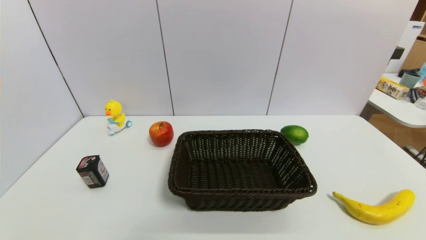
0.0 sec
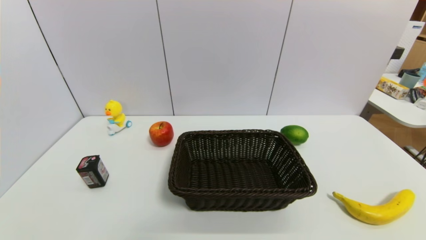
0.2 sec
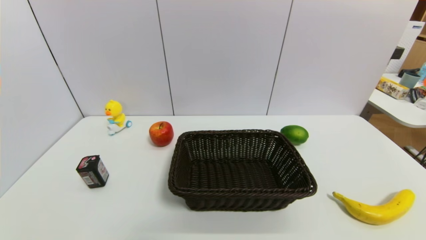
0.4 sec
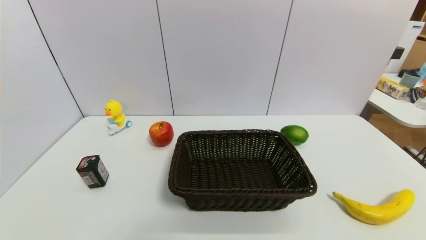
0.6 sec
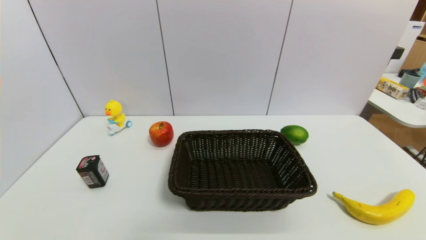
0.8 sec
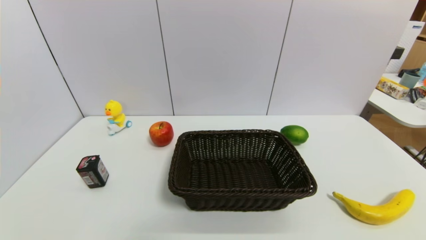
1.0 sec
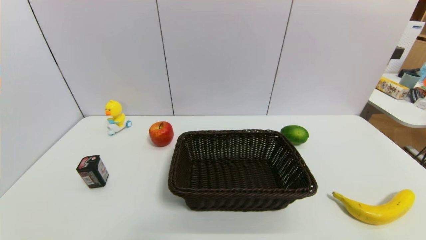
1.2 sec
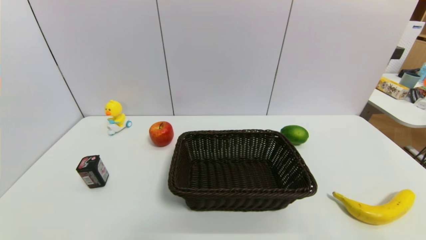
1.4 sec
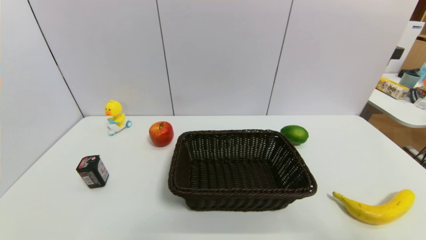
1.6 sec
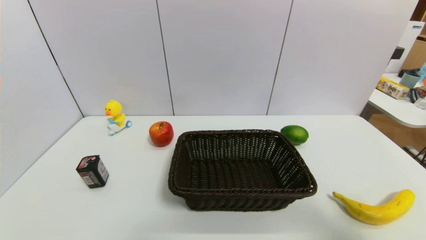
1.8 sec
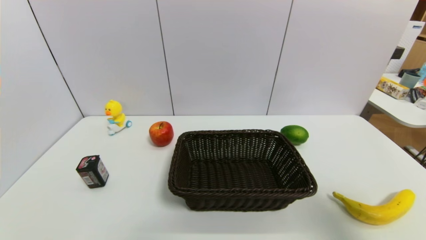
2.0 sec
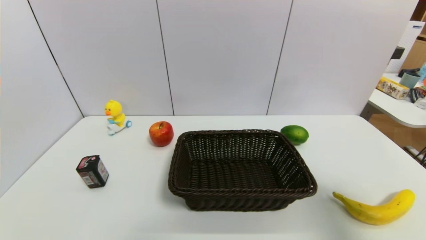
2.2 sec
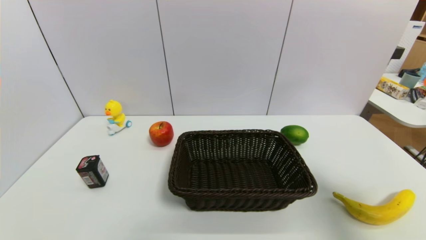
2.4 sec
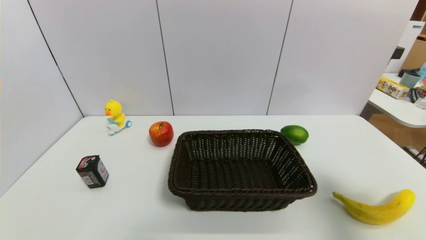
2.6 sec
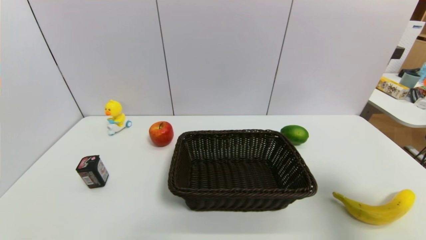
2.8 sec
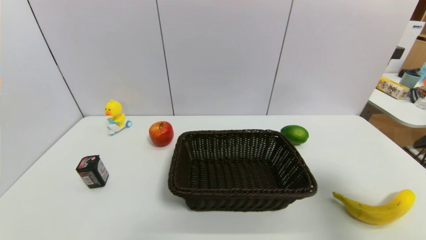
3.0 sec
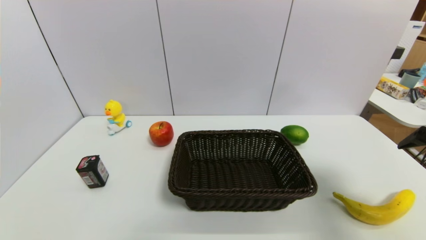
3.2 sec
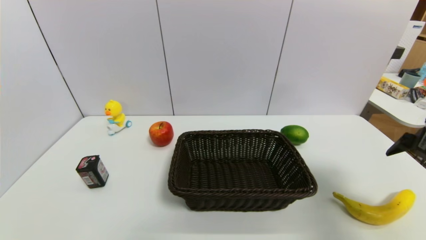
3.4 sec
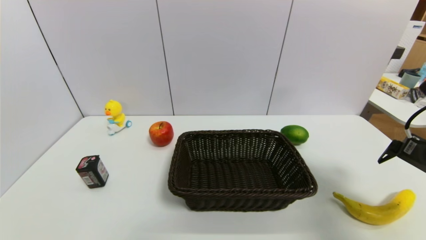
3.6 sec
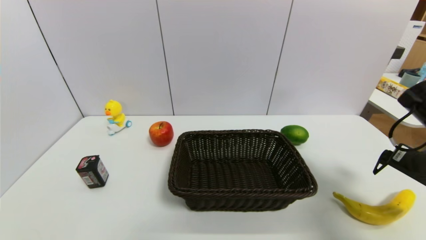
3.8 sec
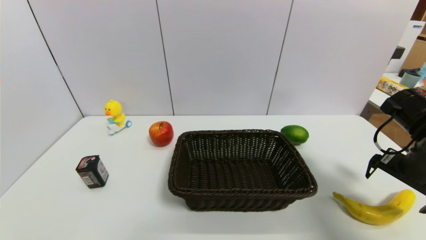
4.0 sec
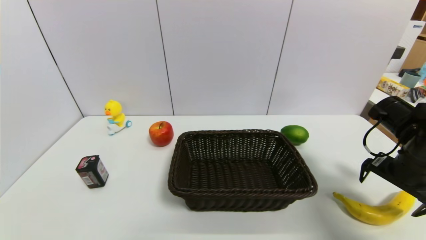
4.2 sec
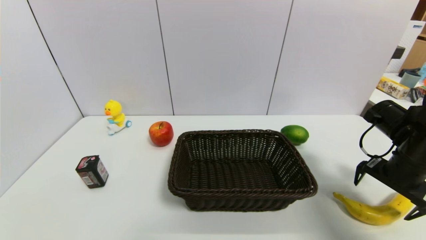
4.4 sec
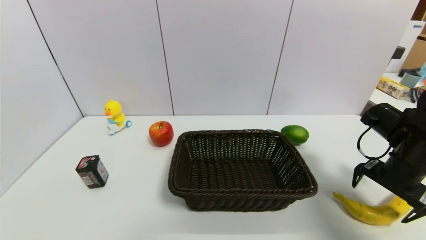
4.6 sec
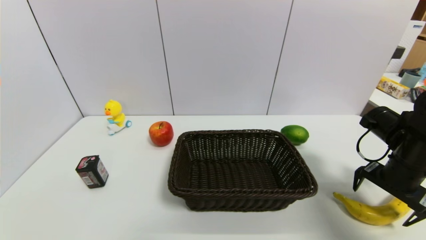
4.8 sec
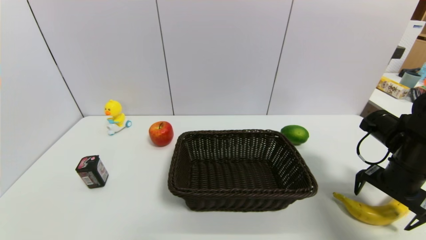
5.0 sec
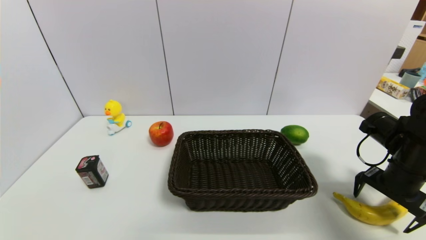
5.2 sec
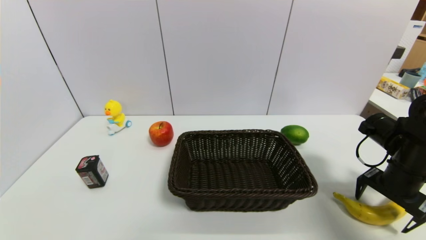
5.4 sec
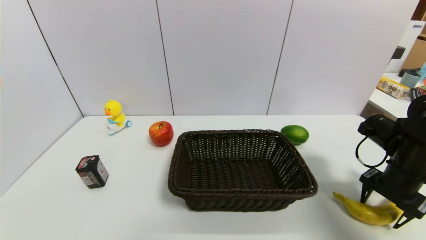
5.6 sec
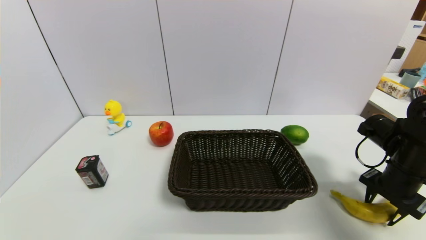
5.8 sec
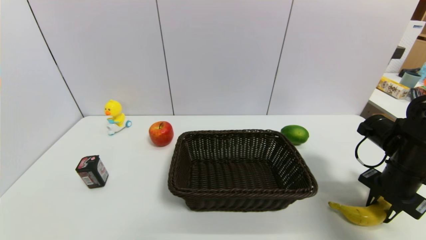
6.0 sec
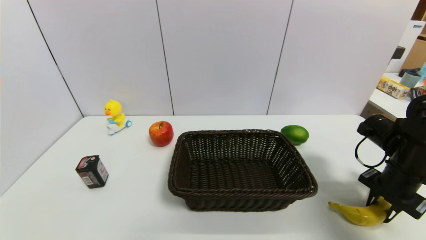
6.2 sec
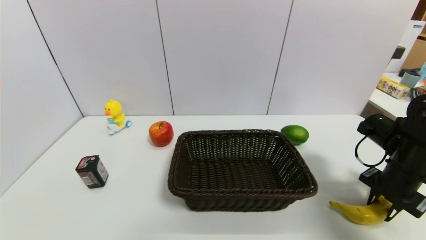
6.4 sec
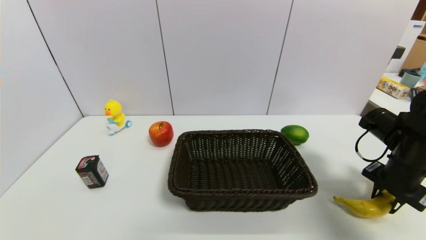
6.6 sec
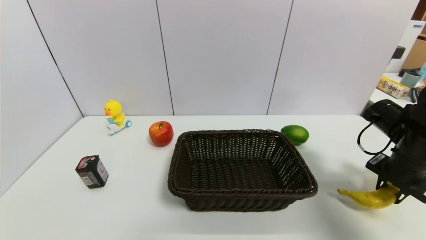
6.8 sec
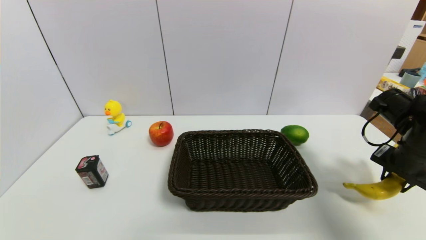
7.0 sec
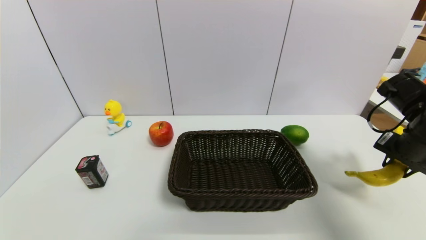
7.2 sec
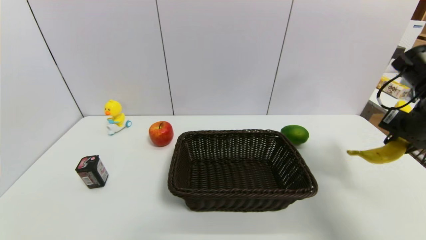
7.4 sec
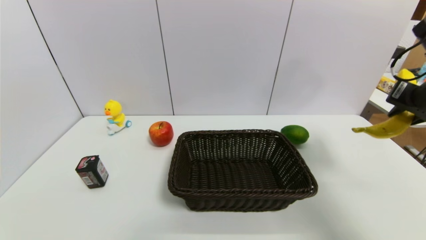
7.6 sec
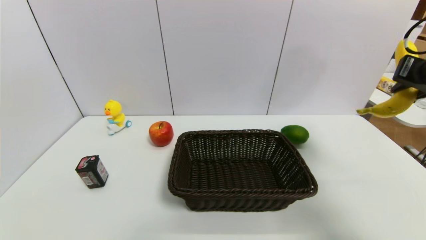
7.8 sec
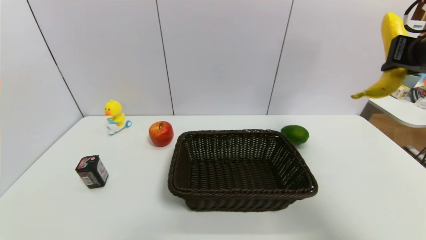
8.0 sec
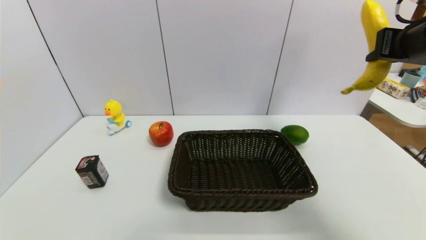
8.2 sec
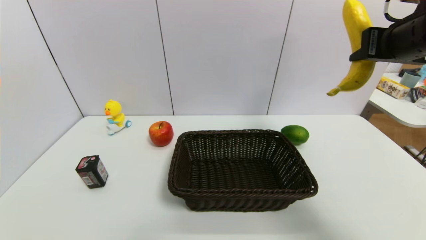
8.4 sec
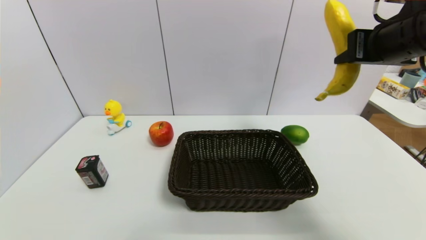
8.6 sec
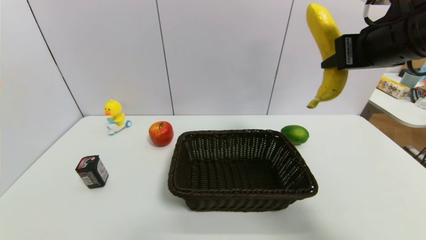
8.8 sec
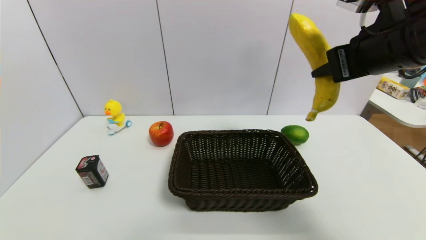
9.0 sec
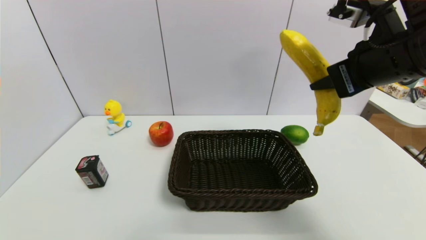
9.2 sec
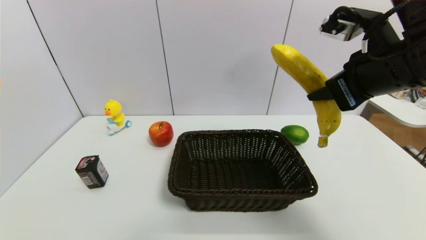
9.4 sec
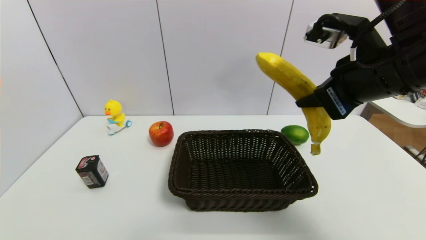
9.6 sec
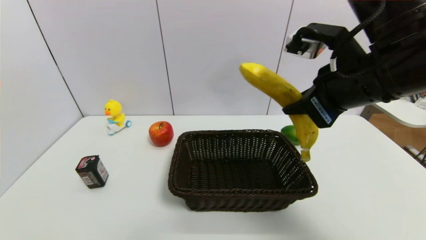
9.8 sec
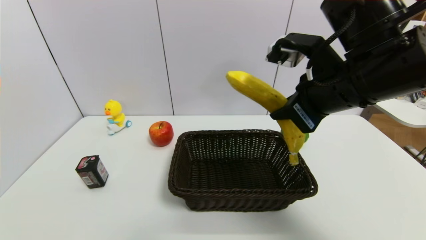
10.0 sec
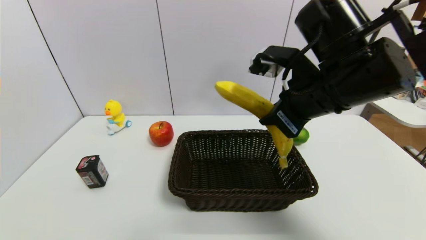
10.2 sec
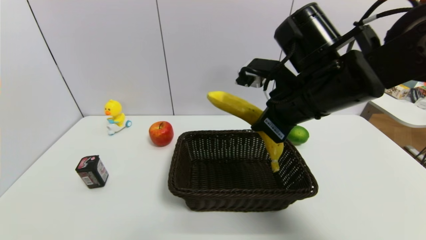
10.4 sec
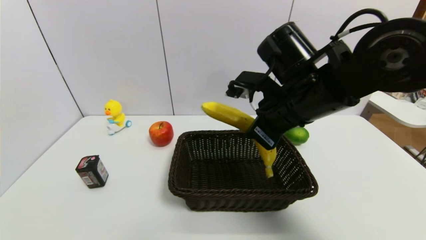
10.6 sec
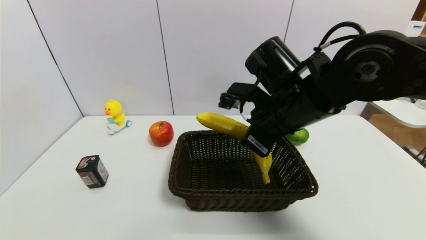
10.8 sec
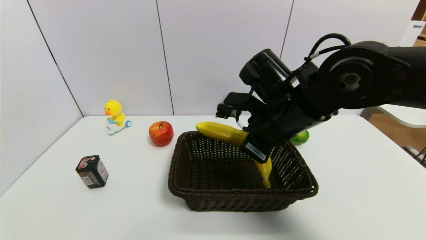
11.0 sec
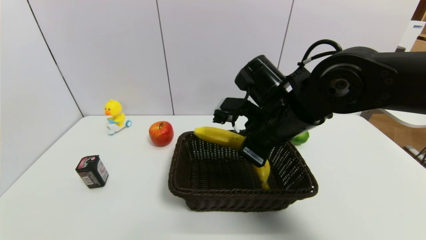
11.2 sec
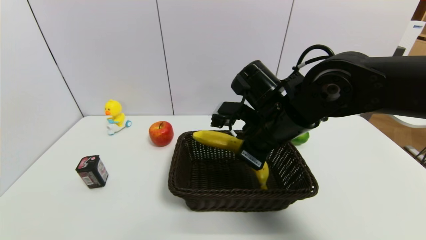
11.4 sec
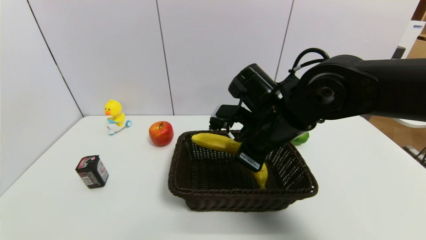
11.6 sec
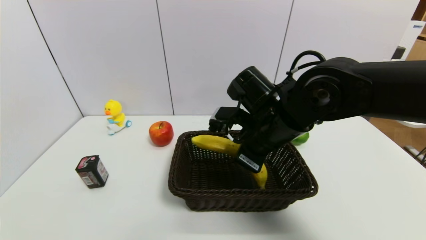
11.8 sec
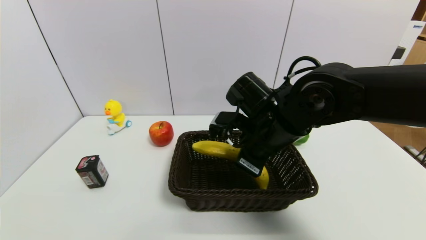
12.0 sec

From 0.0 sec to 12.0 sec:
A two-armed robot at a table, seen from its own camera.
Task of the whole recording: use a gripper to pick the target object and place on the brown basket.
Step, from 0.0 sec to 6.2 sec: Grasp the banana with the right gripper.
From 1.6 sec to 3.0 sec: The right gripper goes approximately 15 cm forward.
From 3.0 sec to 4.4 sec: The right gripper shifts about 15 cm downward and forward.
From 4.4 sec to 6.0 sec: The right gripper closes.
From 6.0 sec to 7.6 sec: The right gripper is displaced upward by some 15 cm.
From 7.6 sec to 9.0 sec: The right gripper goes approximately 15 cm to the left and upward.
From 9.0 sec to 10.4 sec: The right gripper travels to the left and downward by about 10 cm.
From 10.4 sec to 12.0 sec: The right gripper is displaced downward by some 10 cm.

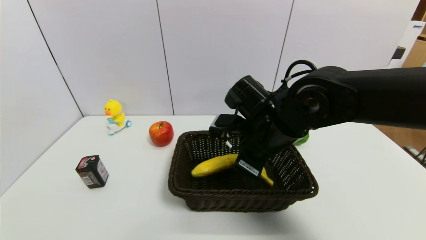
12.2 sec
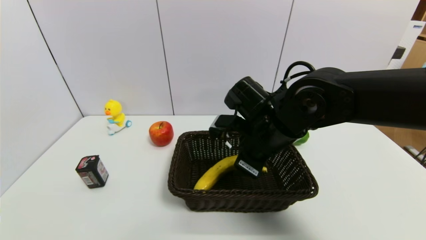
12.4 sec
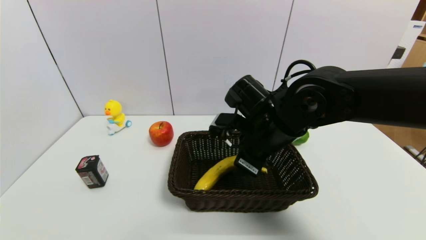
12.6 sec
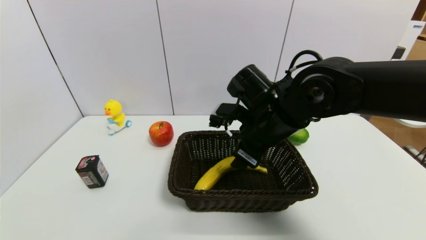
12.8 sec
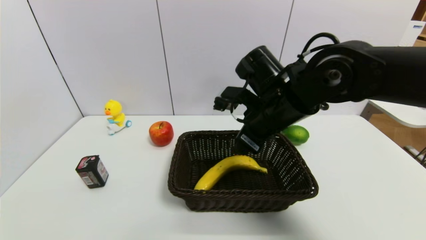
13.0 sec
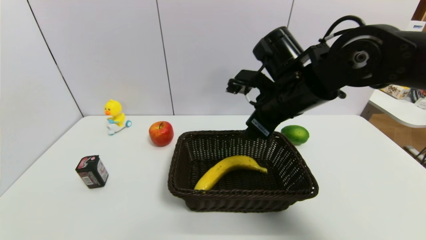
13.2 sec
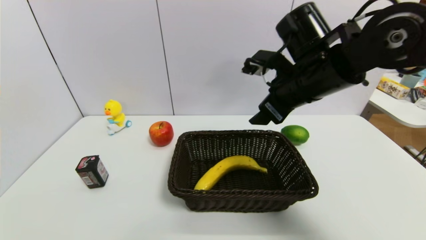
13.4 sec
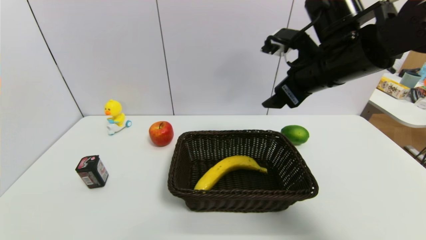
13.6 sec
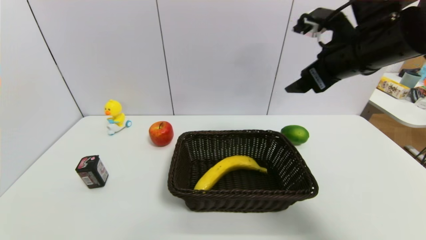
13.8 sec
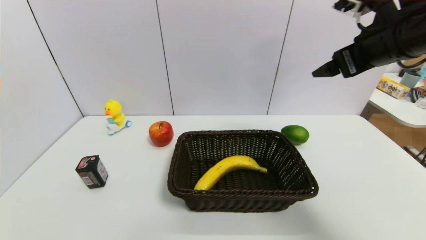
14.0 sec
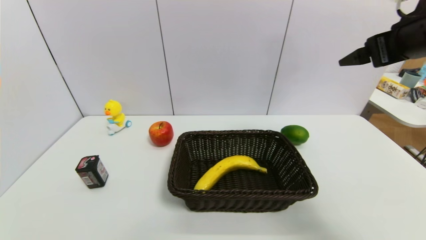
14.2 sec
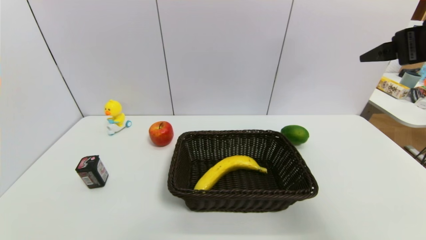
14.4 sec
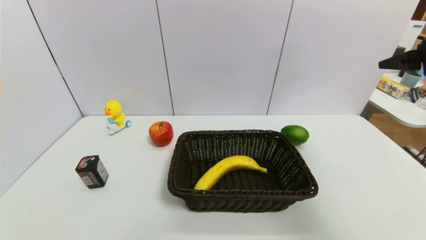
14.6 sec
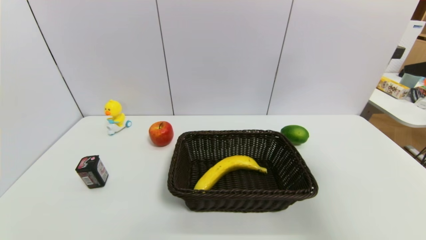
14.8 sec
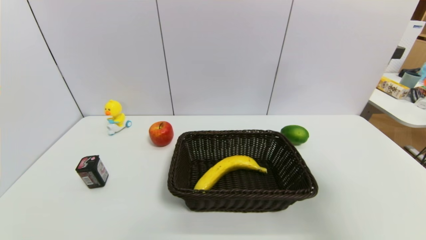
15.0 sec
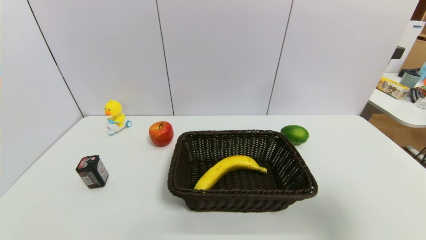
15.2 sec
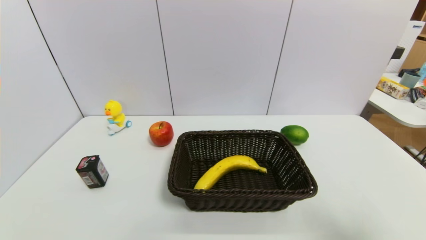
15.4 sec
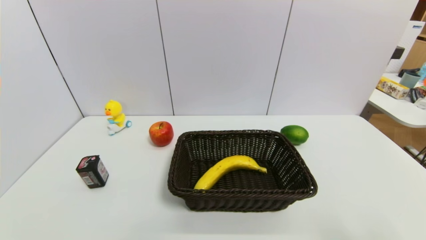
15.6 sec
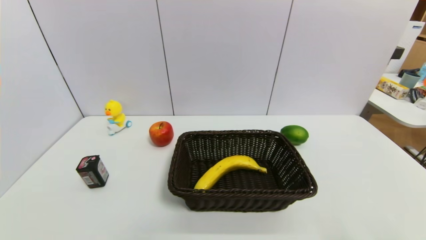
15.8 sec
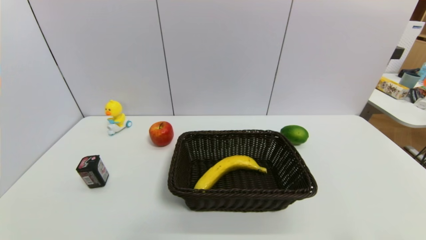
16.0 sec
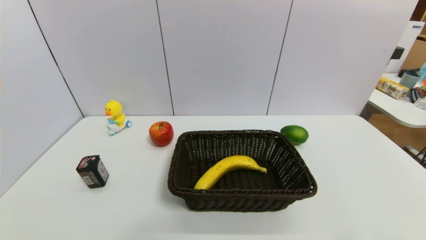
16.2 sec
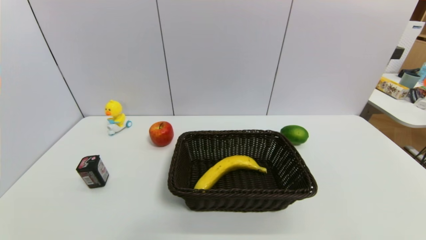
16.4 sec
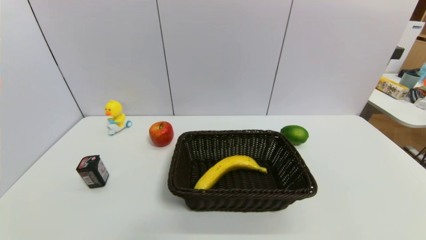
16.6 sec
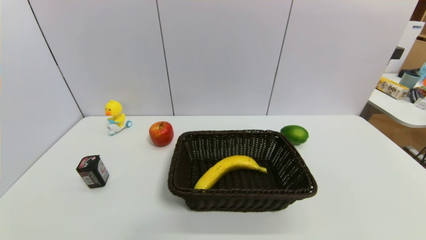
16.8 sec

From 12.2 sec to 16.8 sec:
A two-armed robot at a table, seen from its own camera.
Task of the whole recording: use a gripper to pick the target object and place on the brown basket.
From 12.2 sec to 13.8 sec: The right gripper is displaced upward and to the right by roughly 20 cm, and opens up.
From 13.8 sec to 15.2 sec: The right gripper shifts approximately 25 cm backward and to the right.
From 15.2 sec to 16.8 sec: The right gripper travels downward and backward by roughly 20 cm.
